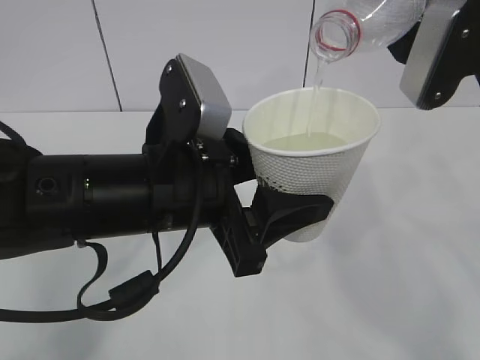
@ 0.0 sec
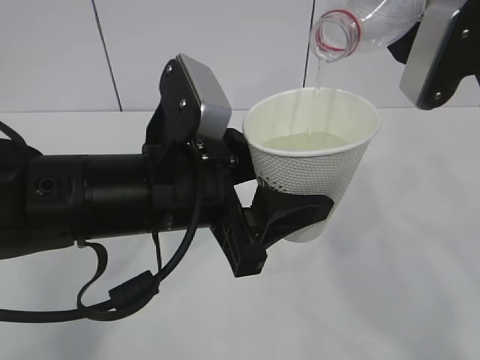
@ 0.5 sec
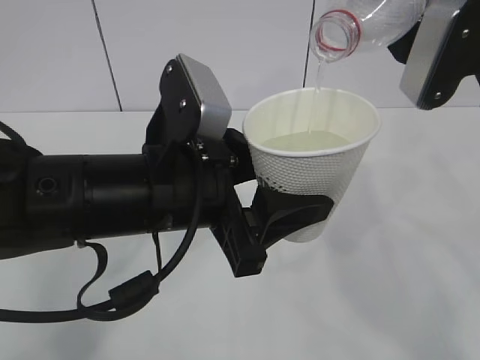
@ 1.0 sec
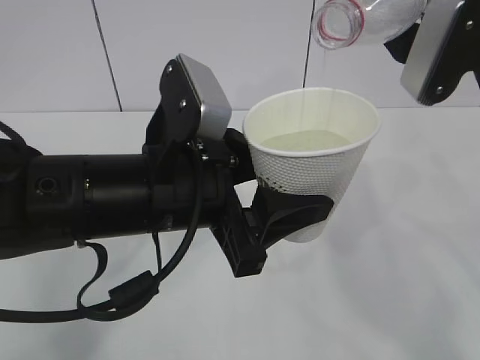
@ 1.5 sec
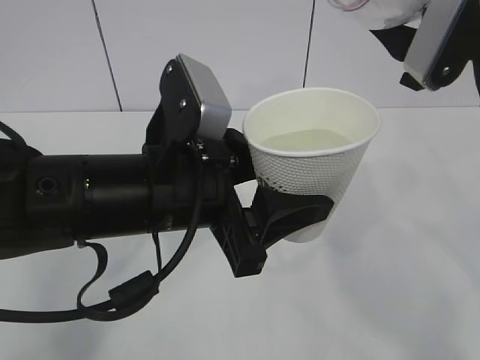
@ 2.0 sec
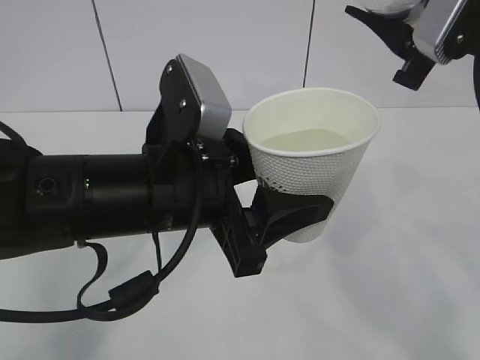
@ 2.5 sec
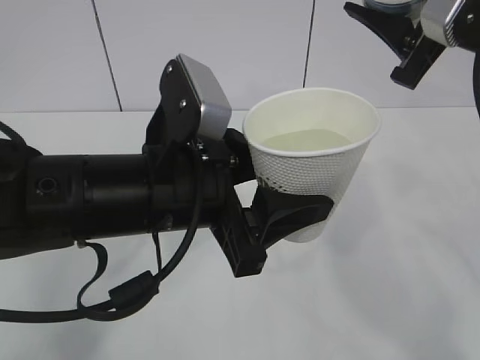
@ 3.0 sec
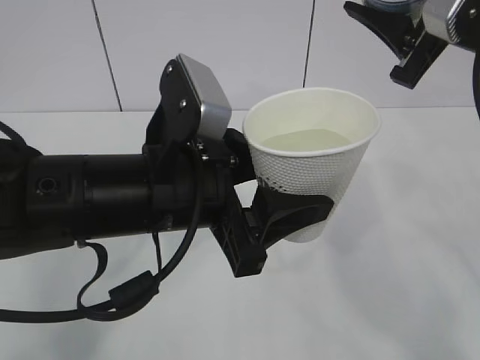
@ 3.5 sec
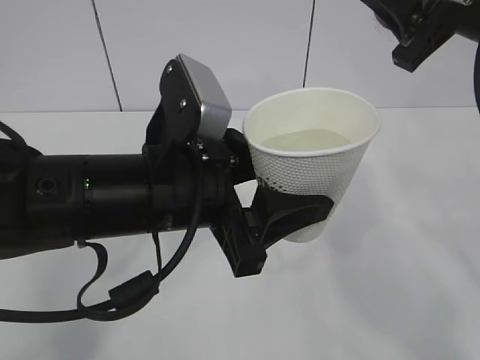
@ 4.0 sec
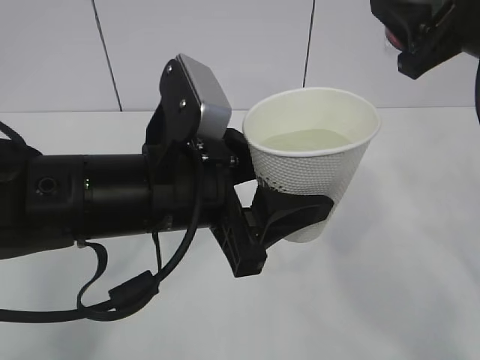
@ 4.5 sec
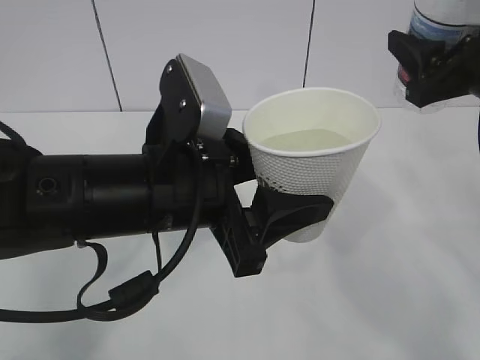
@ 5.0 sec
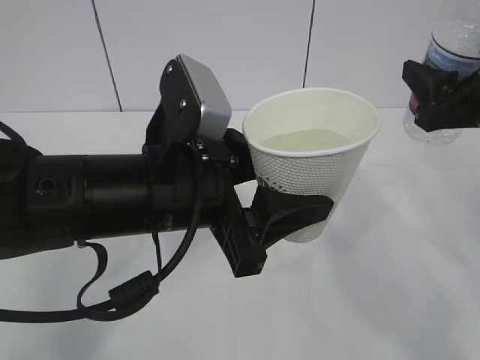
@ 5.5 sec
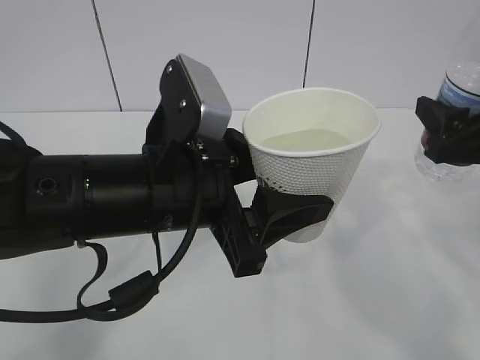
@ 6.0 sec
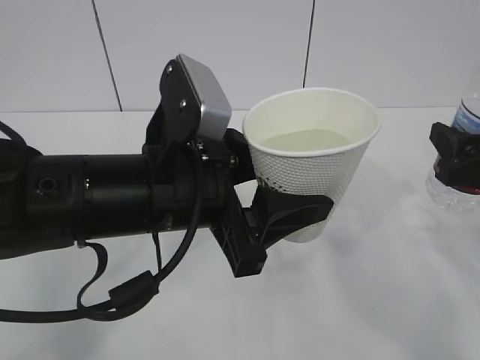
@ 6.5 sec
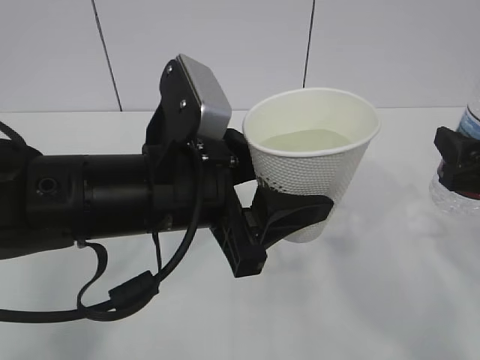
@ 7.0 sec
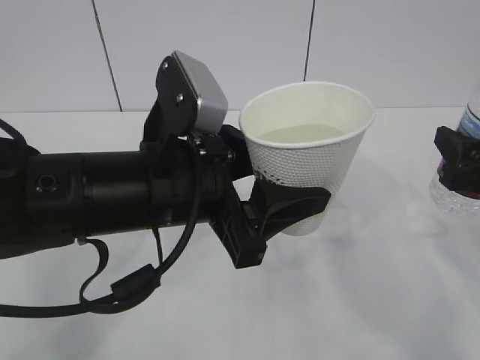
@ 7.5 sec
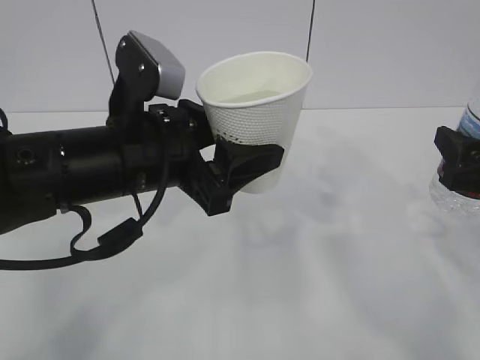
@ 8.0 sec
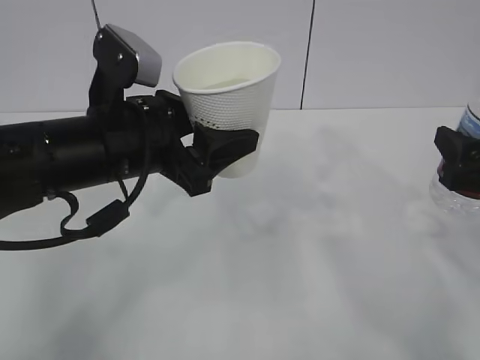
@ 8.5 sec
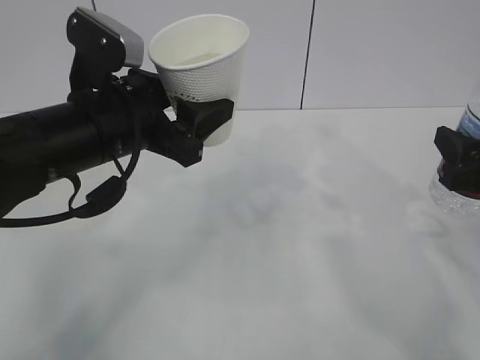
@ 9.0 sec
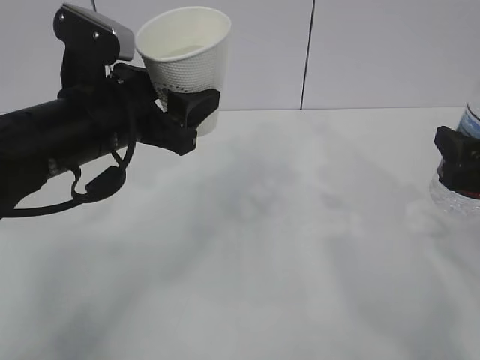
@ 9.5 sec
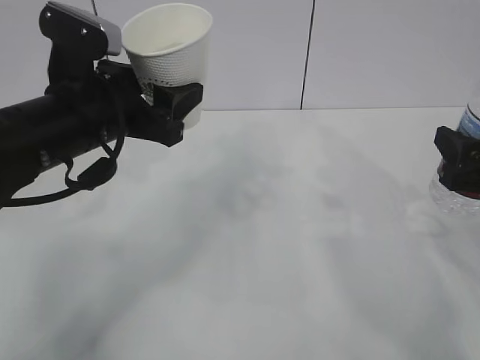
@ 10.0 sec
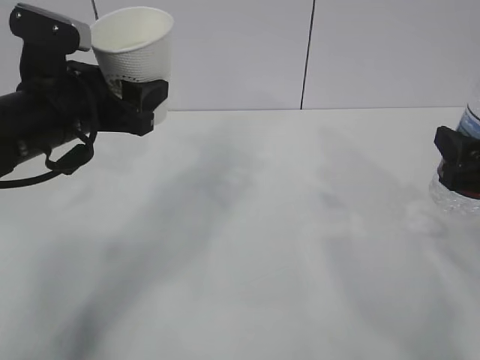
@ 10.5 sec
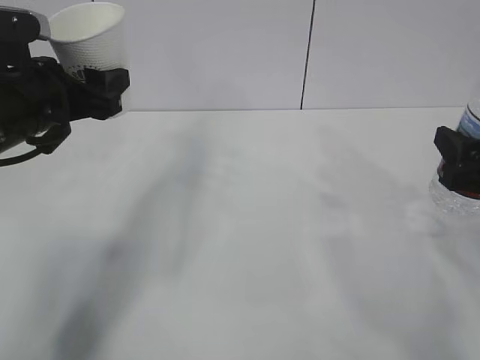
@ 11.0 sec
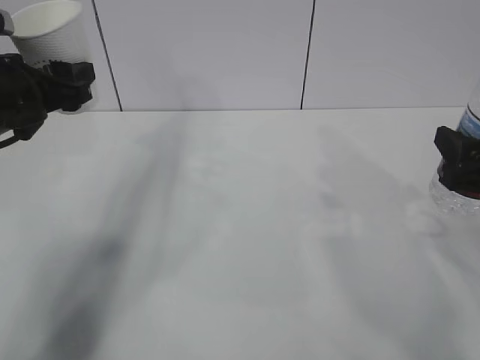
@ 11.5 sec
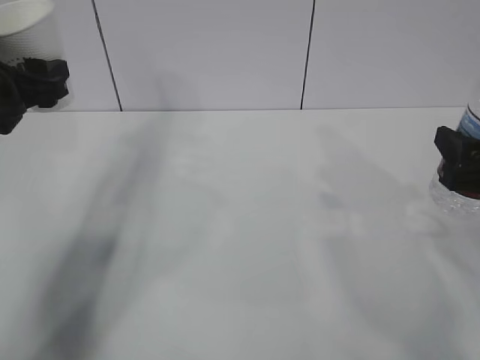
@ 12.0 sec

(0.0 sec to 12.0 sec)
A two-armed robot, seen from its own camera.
0.0 sec - 2.0 sec: The grippers move only a little.
4.0 sec - 6.0 sec: The right gripper moves downward, about 10 cm.
8.0 sec - 10.0 sec: The left gripper heads to the left and forward, covering some 5 cm.
10.0 sec - 12.0 sec: The left gripper is displaced to the left by approximately 10 cm.

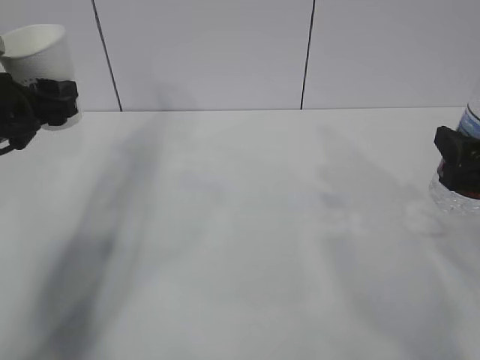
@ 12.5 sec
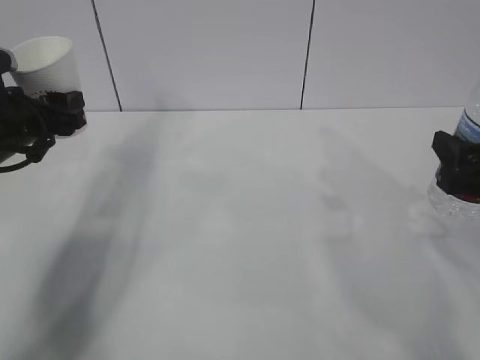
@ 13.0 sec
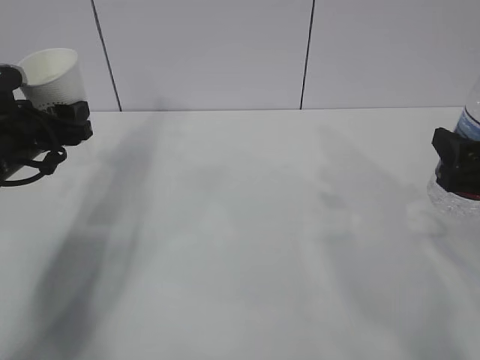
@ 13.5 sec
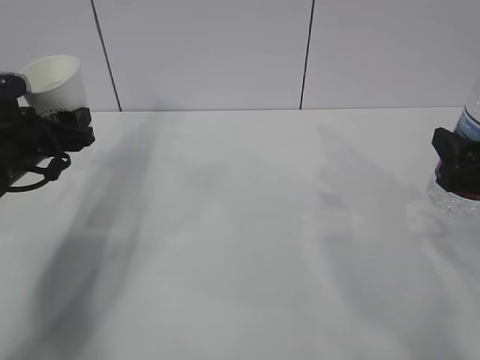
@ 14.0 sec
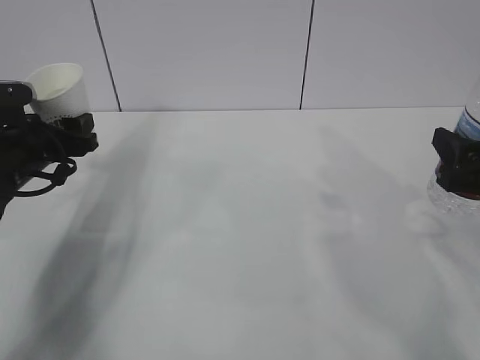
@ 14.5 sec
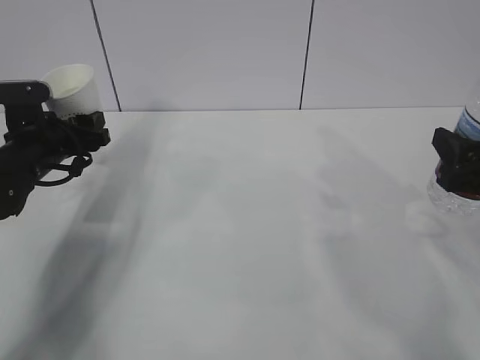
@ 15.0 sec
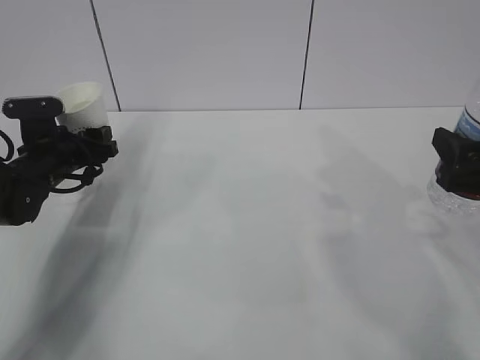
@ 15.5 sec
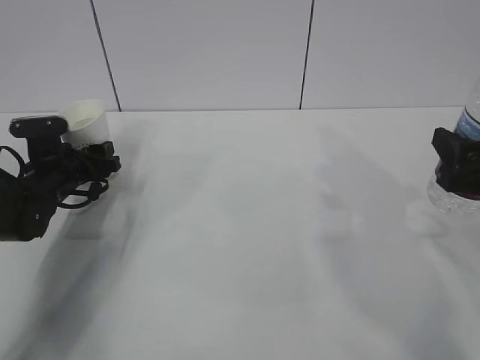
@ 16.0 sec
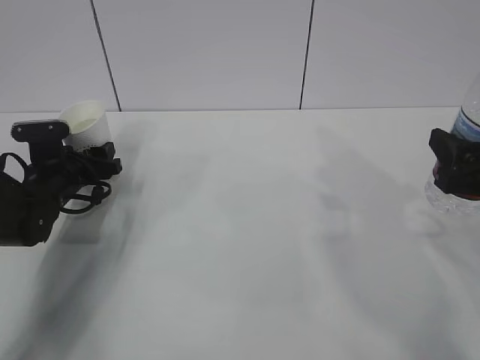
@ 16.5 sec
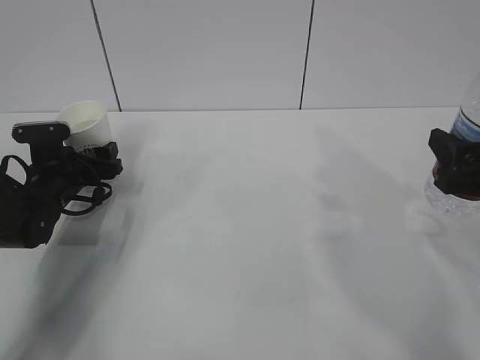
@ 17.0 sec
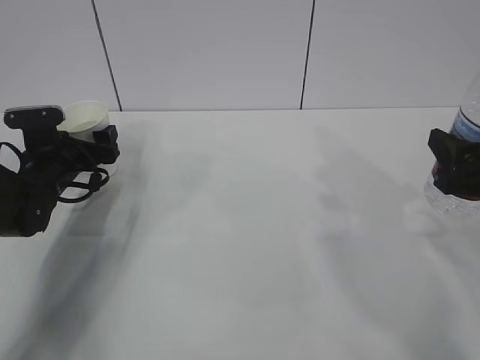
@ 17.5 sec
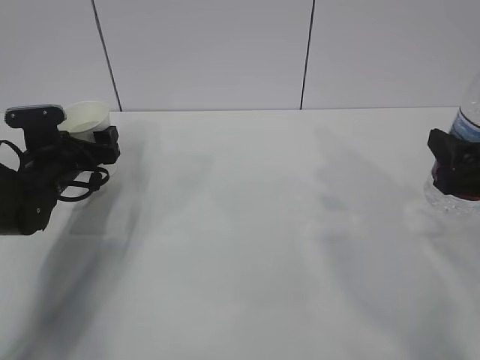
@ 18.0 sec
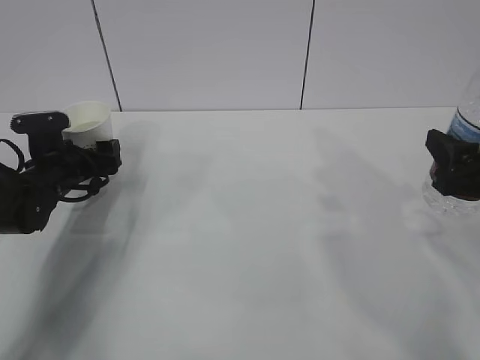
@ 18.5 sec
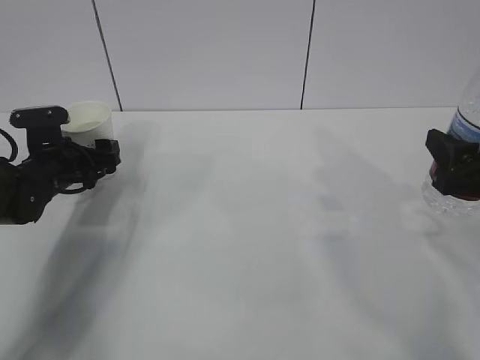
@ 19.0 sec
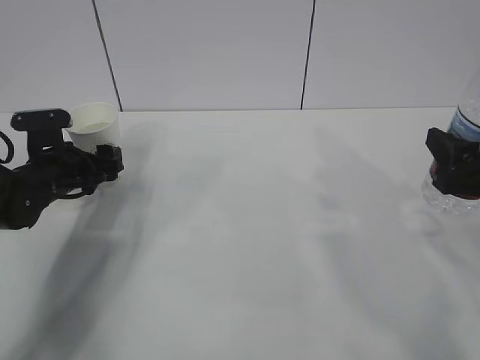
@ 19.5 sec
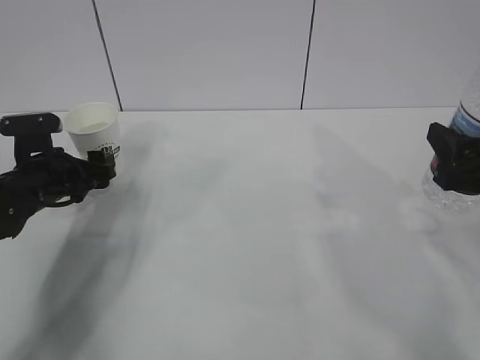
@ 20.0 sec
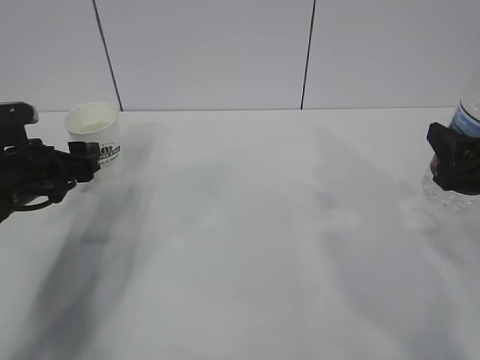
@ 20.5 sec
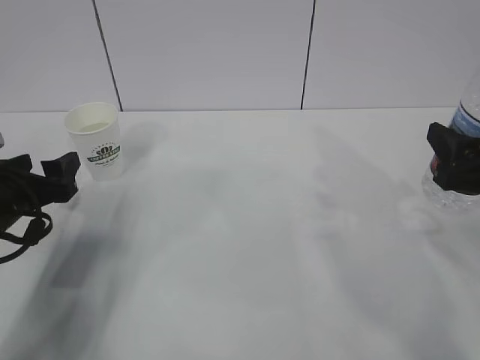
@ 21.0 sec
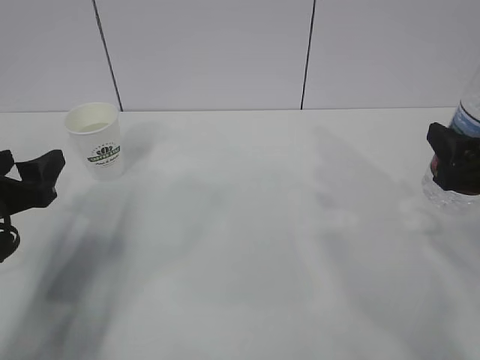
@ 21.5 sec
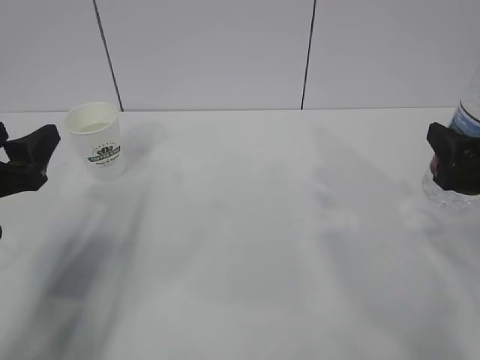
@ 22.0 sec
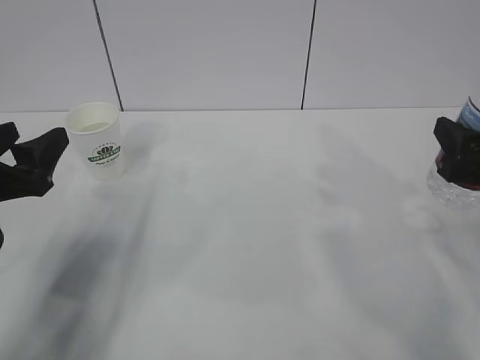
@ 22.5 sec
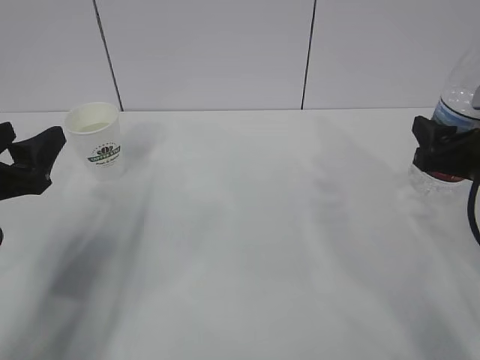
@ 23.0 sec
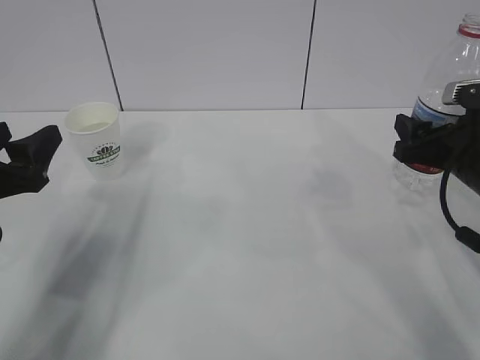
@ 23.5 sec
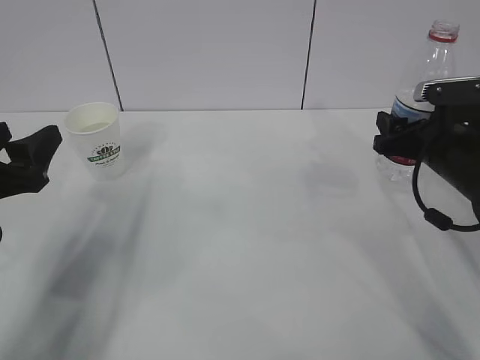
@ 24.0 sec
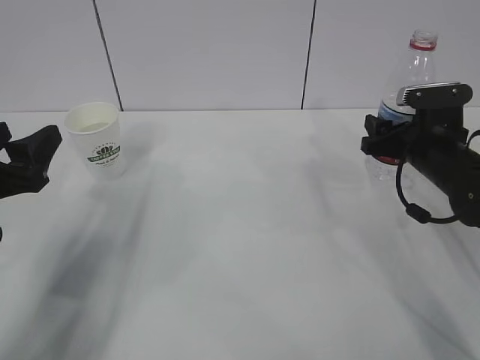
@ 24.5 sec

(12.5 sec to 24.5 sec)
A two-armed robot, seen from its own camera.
12.5 sec - 14.5 sec: The left gripper moves downward, approximately 5 cm.
14.5 sec - 16.5 sec: The left gripper goes some 10 cm downward.
16.5 sec - 18.5 sec: The left gripper opens.
18.5 sec - 20.5 sec: The left gripper goes about 10 cm backward and upward, and closes.
20.5 sec - 22.5 sec: The left gripper is displaced backward and upward by some 10 cm.
22.5 sec - 24.5 sec: The right gripper shifts approximately 15 cm forward and downward.

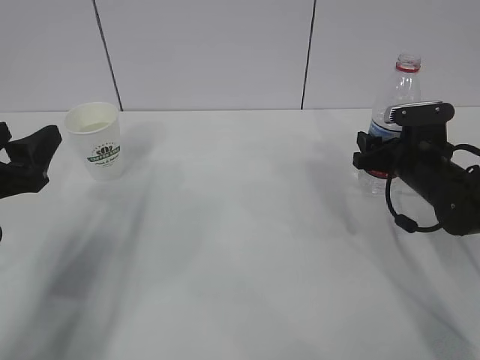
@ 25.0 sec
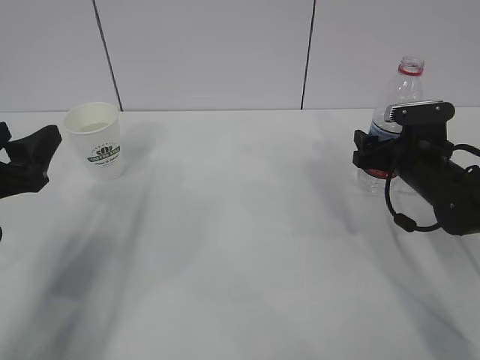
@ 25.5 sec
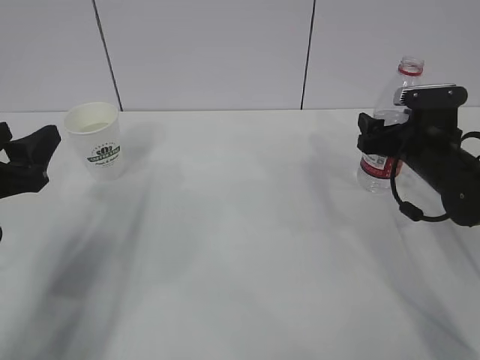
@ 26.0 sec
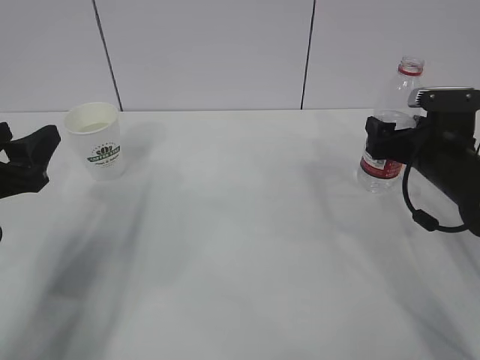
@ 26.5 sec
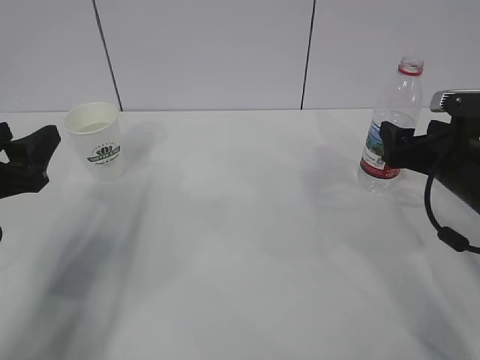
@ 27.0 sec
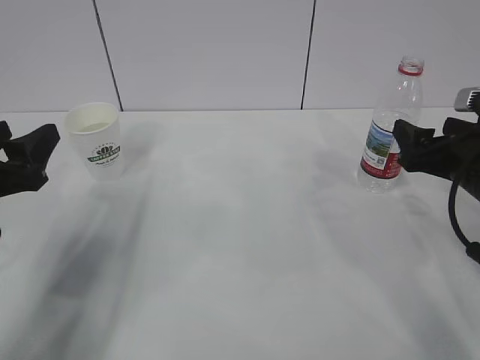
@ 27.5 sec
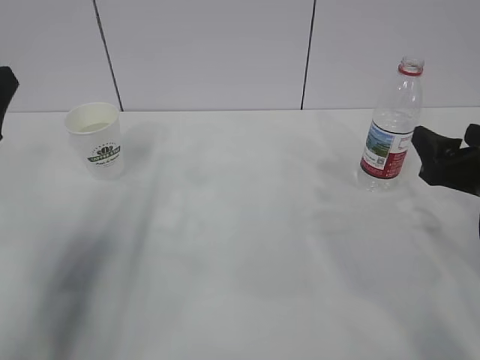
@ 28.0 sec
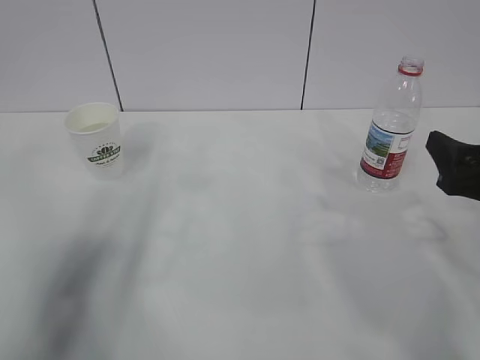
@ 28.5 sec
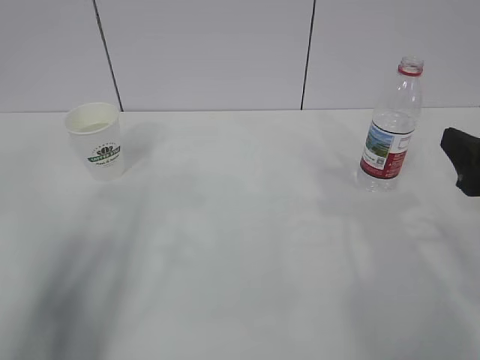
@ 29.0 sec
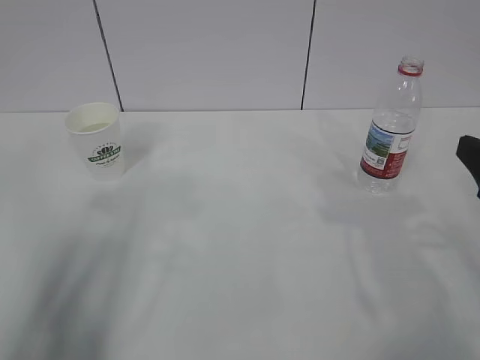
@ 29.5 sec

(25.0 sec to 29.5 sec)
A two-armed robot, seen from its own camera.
25.0 sec - 27.0 sec: The right gripper moves backward and upward, roughly 10 cm, and opens its fingers.
27.0 sec - 29.5 sec: The grippers both shift backward and upward by about 15 cm.
